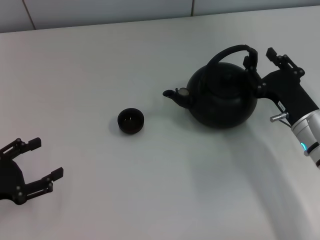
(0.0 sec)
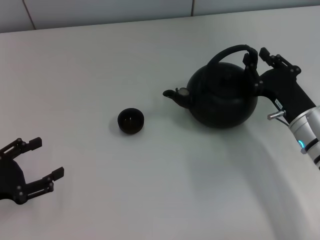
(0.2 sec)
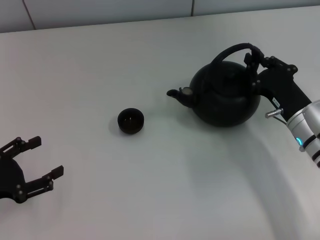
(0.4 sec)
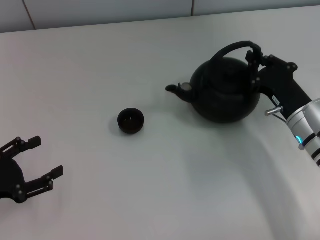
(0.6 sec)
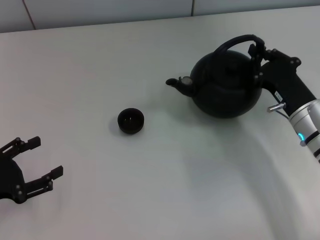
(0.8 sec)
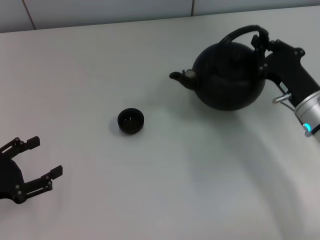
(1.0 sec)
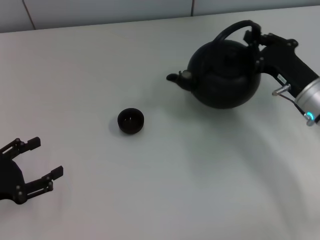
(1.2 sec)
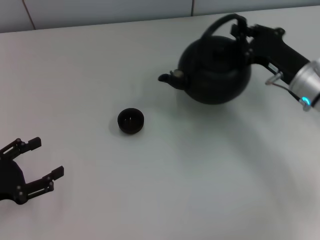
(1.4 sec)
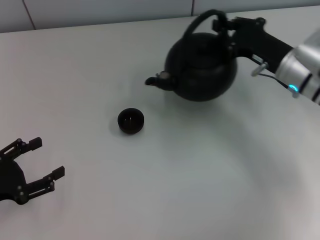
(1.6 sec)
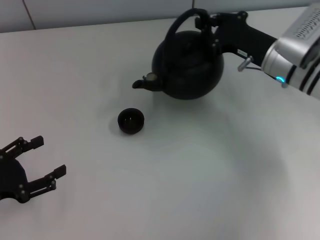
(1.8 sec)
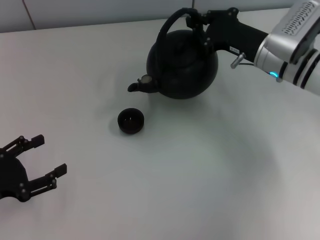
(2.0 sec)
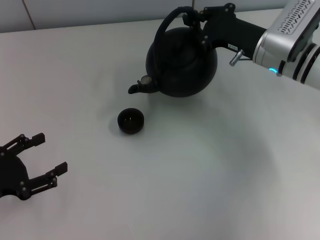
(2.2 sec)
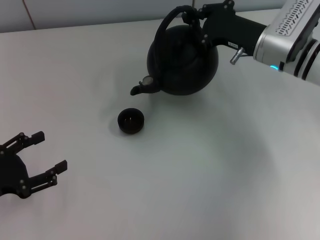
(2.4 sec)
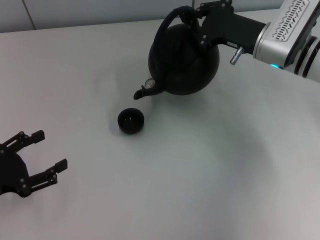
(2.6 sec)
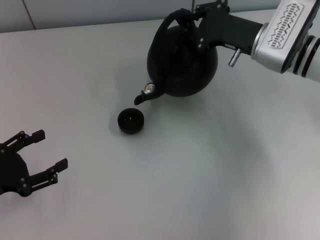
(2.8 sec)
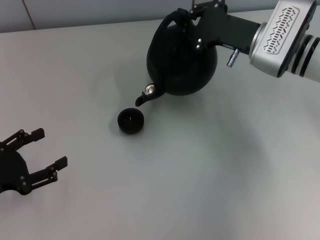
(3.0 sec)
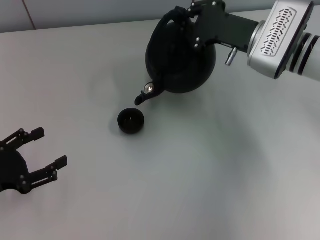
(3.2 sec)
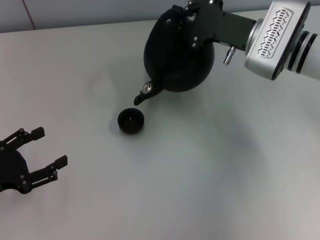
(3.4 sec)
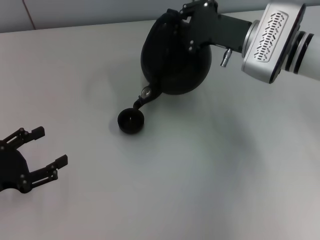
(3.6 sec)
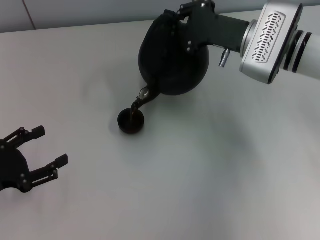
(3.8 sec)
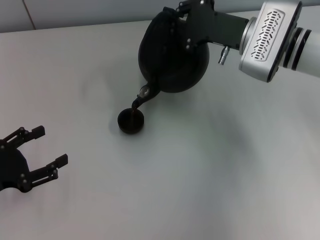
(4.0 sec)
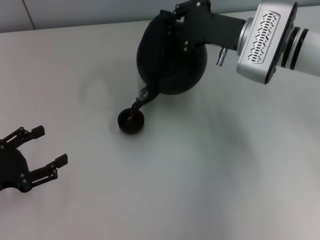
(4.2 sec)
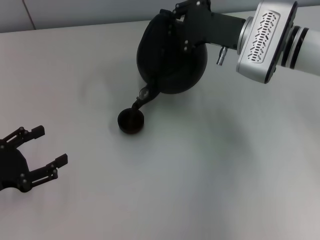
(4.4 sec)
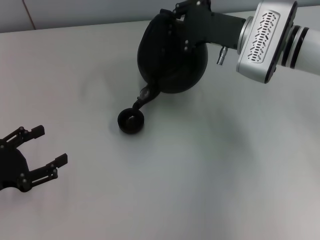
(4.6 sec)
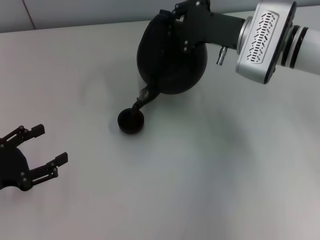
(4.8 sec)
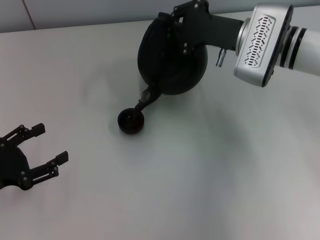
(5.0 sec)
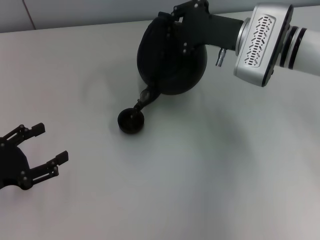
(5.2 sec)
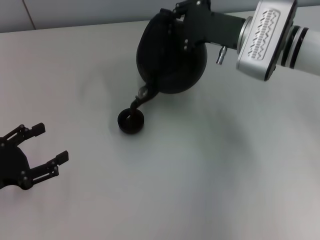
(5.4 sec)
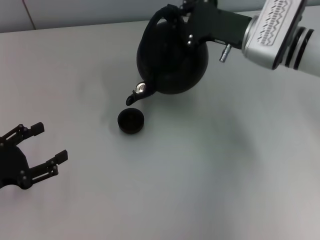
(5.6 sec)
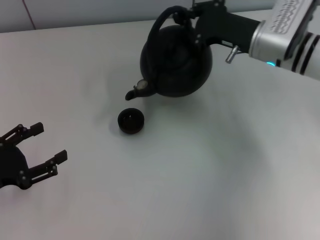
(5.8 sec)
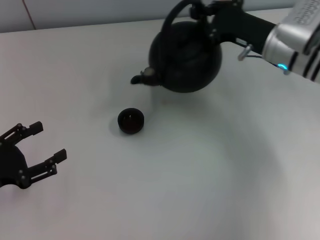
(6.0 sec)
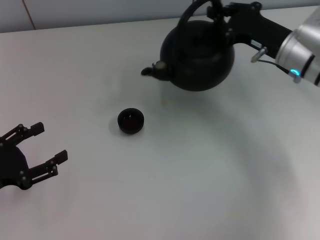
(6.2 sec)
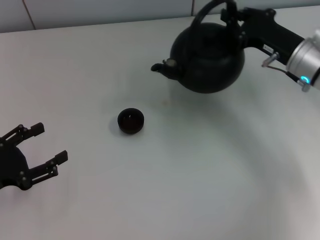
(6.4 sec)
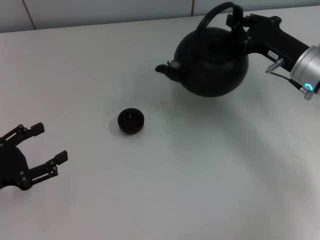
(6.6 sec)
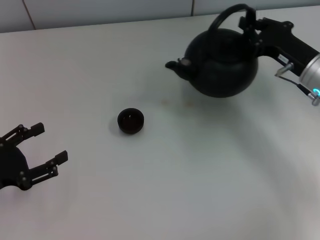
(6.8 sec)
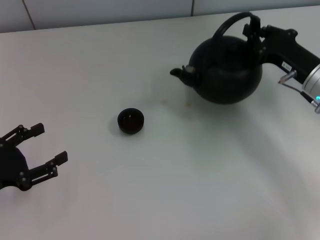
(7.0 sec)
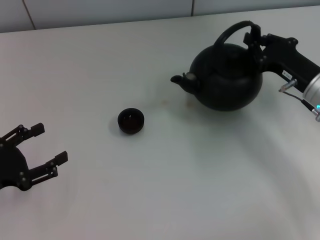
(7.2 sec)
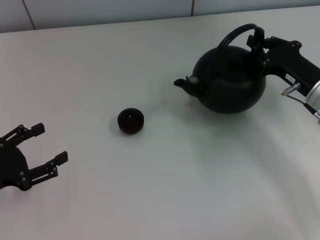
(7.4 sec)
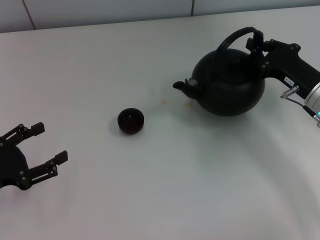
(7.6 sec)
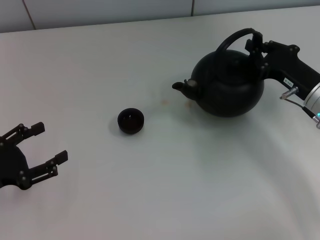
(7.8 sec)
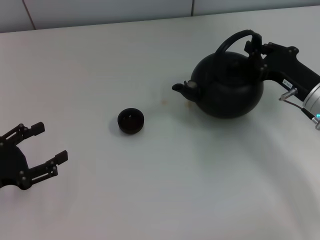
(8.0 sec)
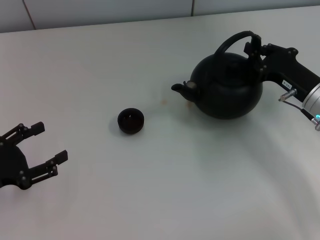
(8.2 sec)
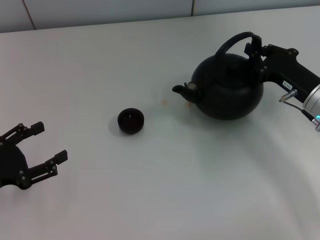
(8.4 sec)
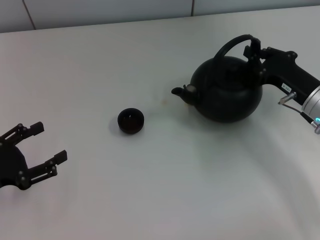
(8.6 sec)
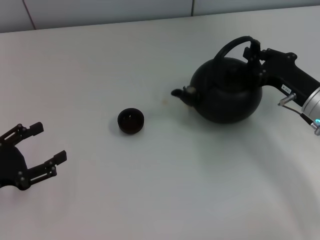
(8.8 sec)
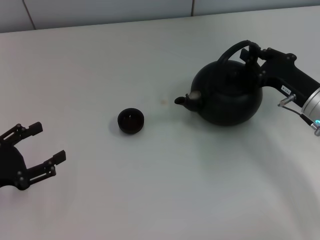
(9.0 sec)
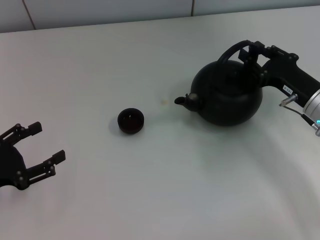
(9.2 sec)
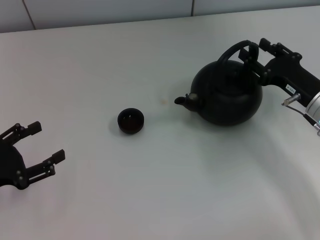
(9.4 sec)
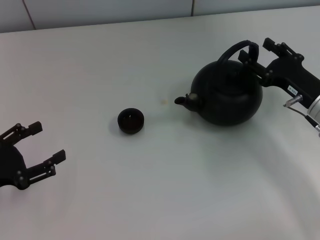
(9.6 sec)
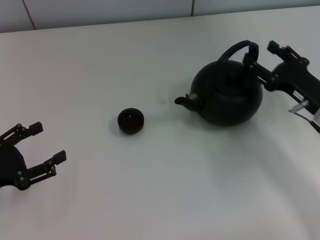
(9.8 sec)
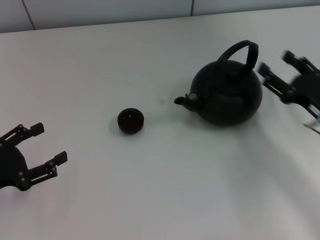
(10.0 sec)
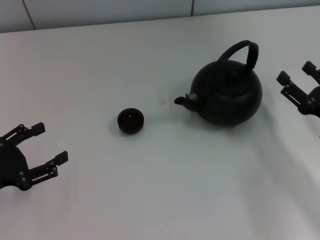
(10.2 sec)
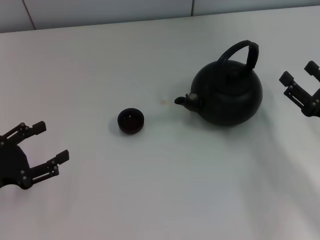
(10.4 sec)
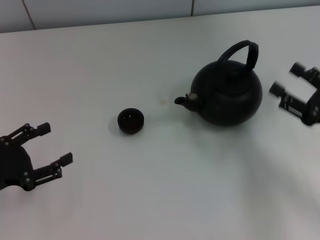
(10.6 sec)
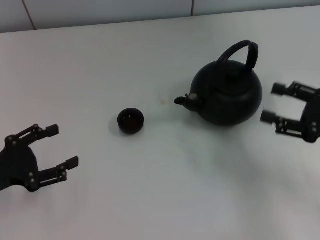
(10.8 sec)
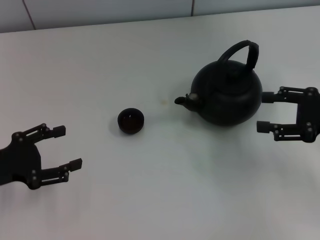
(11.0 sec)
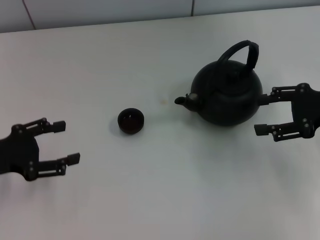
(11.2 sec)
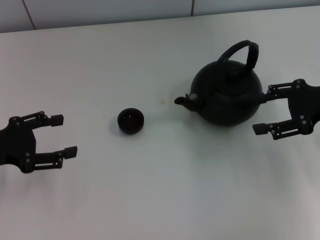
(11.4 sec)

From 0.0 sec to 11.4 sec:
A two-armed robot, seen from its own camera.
Task of the whole recording: Grasp the handle of the teapot with one hand and pour tea into the teacup.
Step, from 6.0 sec to 10.0 sec: Put down the teapot with the right gripper.
From 0.0 sec to 1.4 sec: The right gripper heads forward, covering approximately 5 cm, and closes its fingers.
From 1.4 sec to 2.8 sec: The right gripper moves forward, approximately 5 cm.
From 2.8 sec to 5.6 sec: The grippers make only small movements.
From 5.6 sec to 7.2 sec: The right gripper heads to the right, backward and downward, covering some 15 cm.
From 7.2 sec to 8.6 sec: There are only small adjustments of the grippers.
From 8.6 sec to 10.0 sec: The right gripper travels backward by about 5 cm, and opens.
From 10.0 sec to 11.4 sec: The right gripper moves upward and forward, approximately 10 cm, while the left gripper shifts about 5 cm forward.

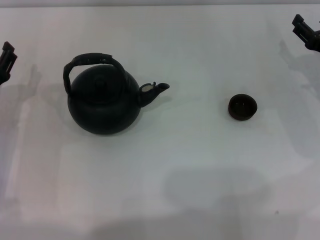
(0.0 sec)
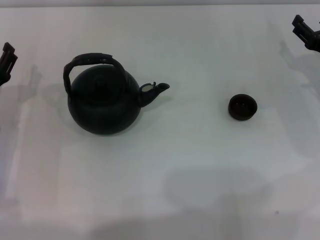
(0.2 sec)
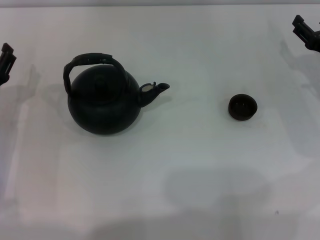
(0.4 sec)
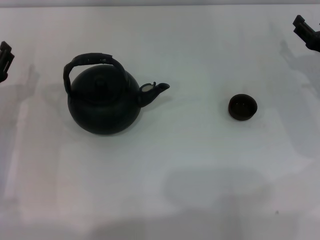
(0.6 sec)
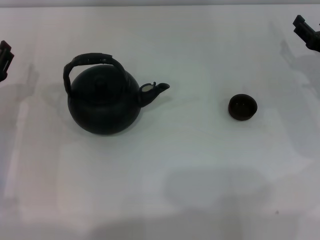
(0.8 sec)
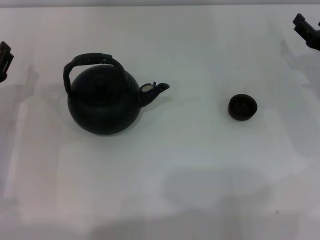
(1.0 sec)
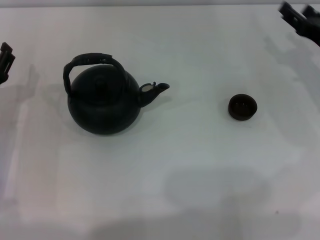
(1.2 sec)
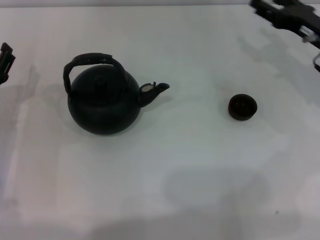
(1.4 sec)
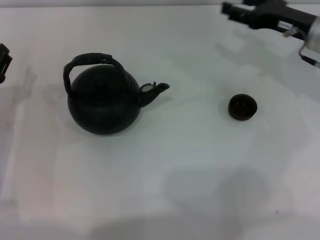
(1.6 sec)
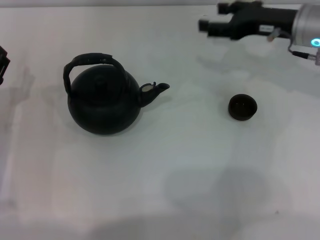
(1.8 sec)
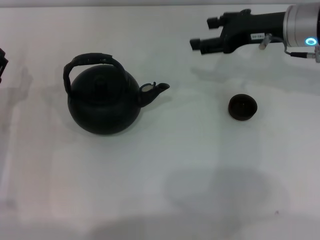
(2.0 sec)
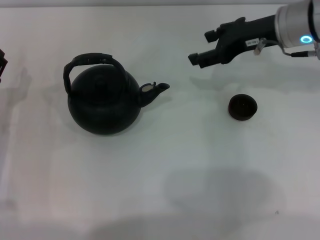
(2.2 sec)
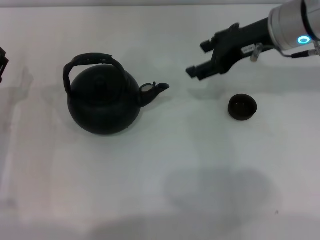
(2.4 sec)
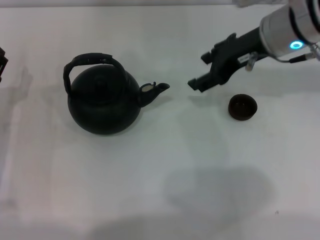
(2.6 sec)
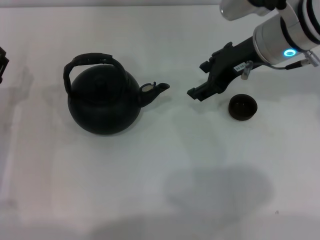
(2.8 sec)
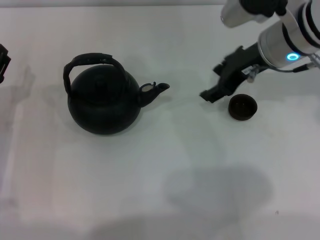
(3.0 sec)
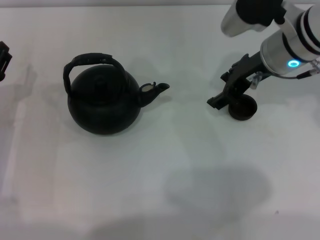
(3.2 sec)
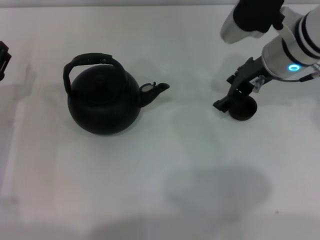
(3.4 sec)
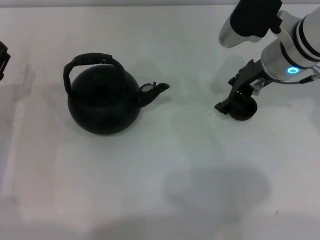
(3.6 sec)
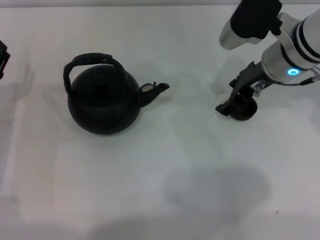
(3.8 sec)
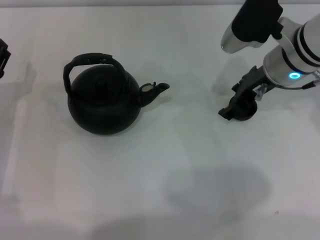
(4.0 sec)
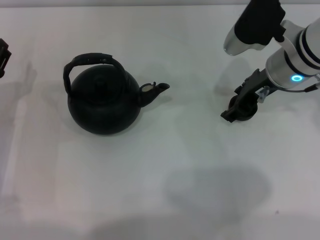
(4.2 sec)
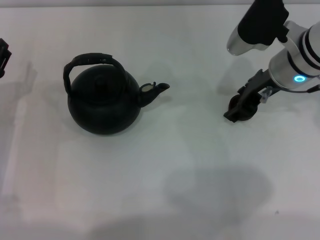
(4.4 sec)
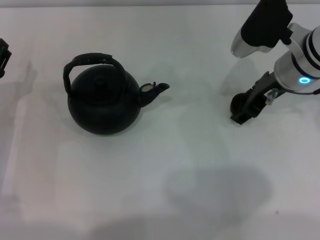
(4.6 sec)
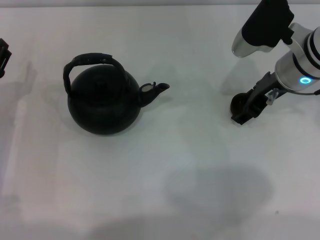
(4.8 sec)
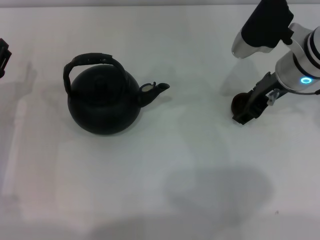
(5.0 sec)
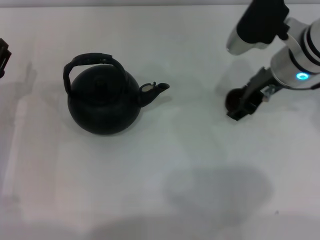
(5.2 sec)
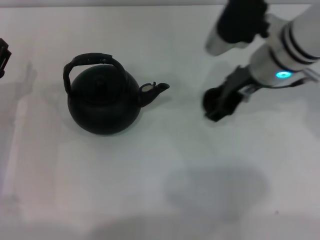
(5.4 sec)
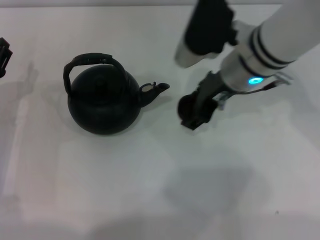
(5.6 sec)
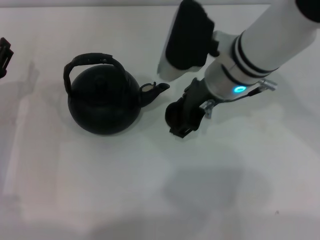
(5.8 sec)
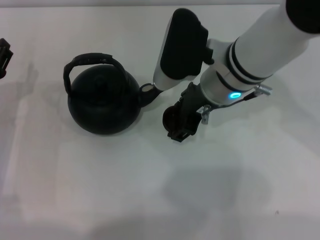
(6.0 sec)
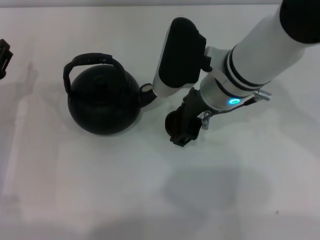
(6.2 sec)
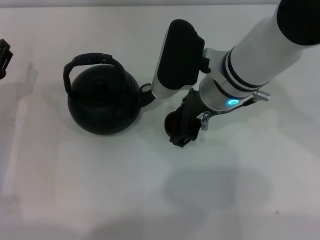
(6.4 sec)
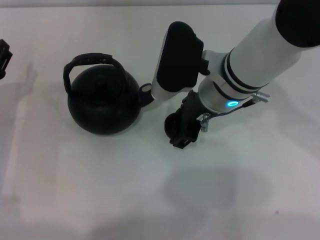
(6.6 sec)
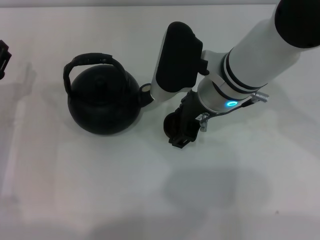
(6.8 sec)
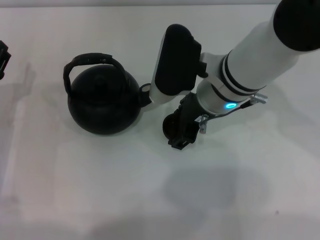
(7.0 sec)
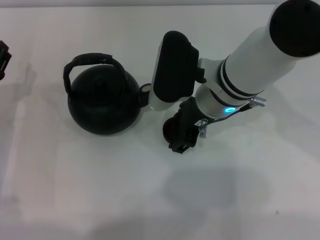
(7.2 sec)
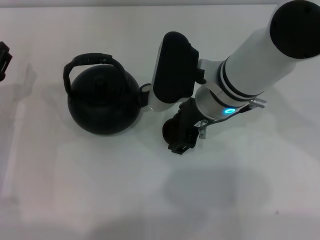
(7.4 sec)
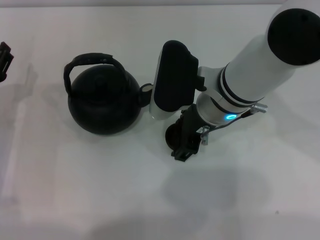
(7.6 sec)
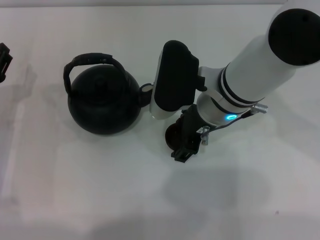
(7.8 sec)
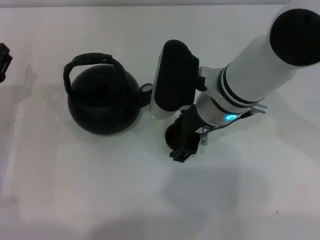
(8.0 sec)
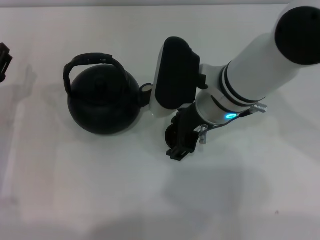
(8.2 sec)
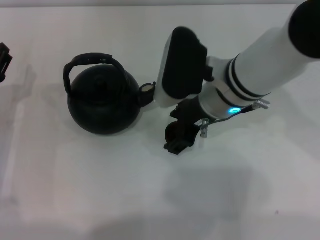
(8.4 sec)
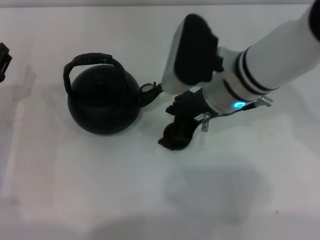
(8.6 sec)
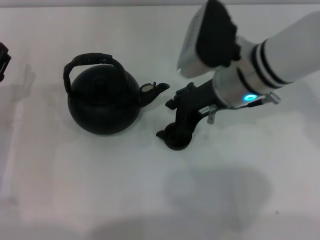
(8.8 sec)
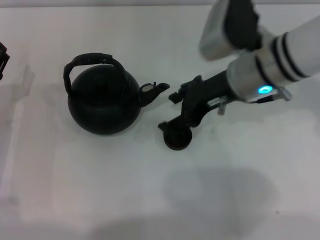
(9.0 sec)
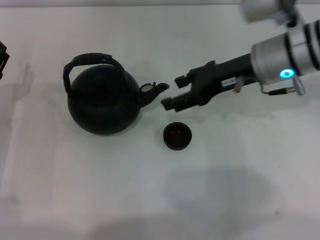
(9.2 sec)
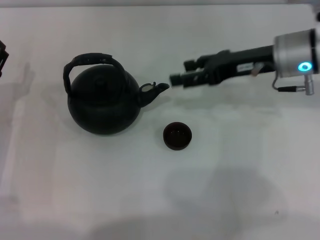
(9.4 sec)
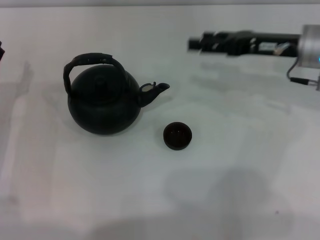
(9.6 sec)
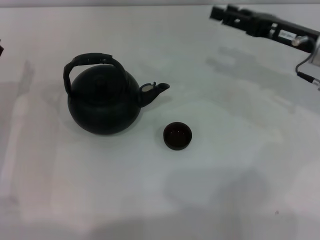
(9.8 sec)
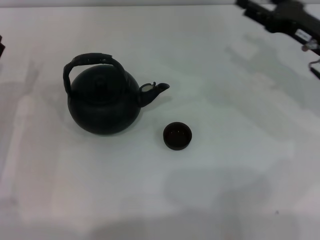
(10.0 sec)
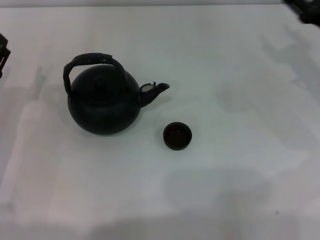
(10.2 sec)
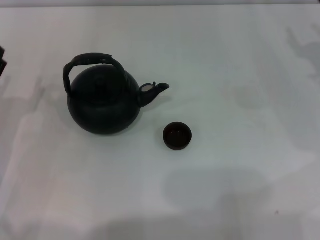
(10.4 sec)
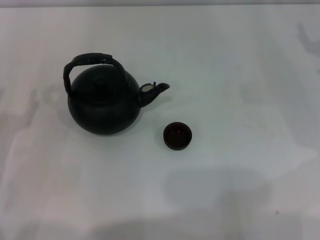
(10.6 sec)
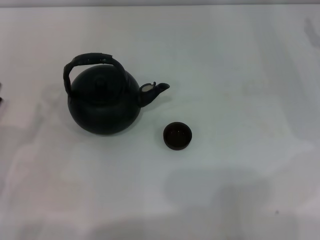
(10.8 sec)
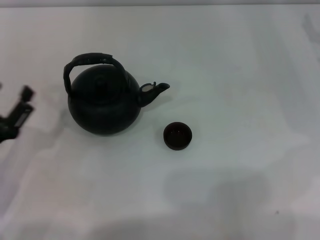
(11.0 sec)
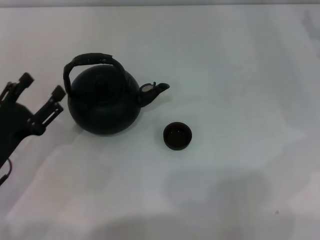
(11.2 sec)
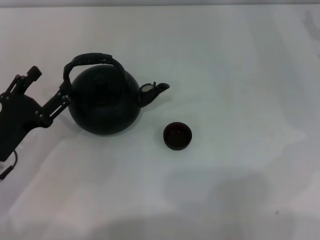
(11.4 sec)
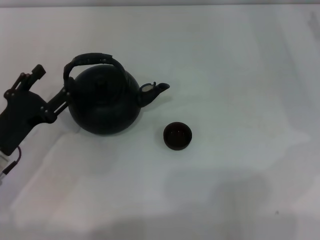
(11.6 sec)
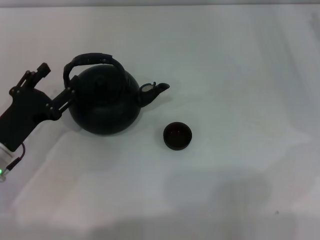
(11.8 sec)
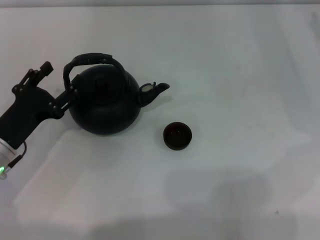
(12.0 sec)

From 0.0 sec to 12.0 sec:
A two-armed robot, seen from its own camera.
Task of the whole recording: Grasp the handle of the teapot with one hand and pour tea into the teacup.
Step, from 0.0 sec to 5.4 sec: Pick up the teacup with the right gripper.
Step, from 5.6 sec to 8.8 sec: Place the teacup in the center of view with the right gripper.
From 0.0 sec to 1.6 sec: The right gripper shifts approximately 10 cm upward, to the left and forward.
From 1.6 sec to 3.0 sec: The right gripper moves to the left and upward, some 10 cm.
From 3.0 sec to 4.4 sec: The grippers move only a little.
From 4.4 sec to 6.0 sec: The right gripper is displaced to the left by roughly 10 cm.
From 6.0 sec to 7.6 sec: The grippers stay close to where they were, moving slightly.
From 7.6 sec to 9.0 sec: The right gripper goes some 5 cm to the right.
From 9.0 sec to 10.4 sec: The right gripper moves to the right, about 20 cm.
